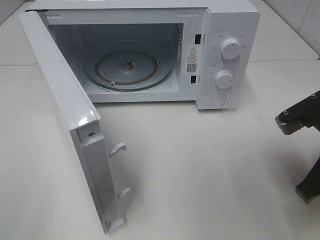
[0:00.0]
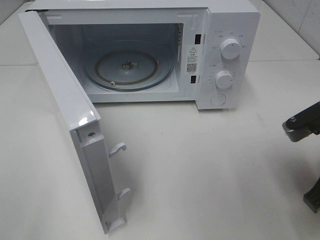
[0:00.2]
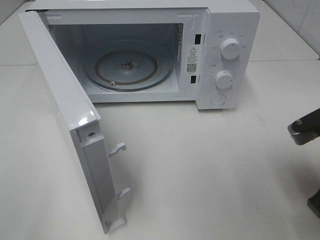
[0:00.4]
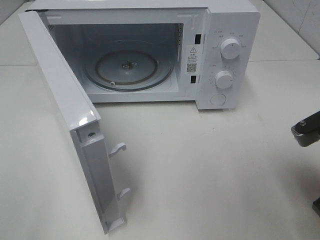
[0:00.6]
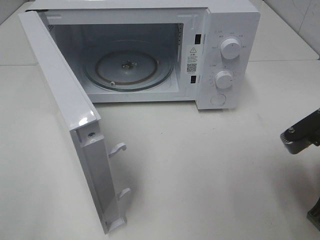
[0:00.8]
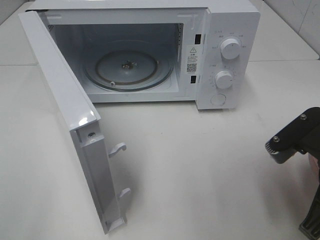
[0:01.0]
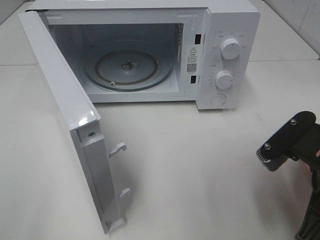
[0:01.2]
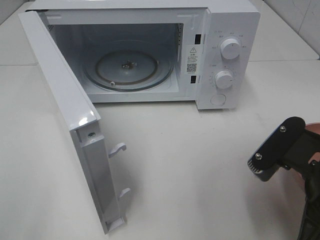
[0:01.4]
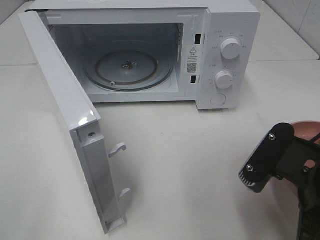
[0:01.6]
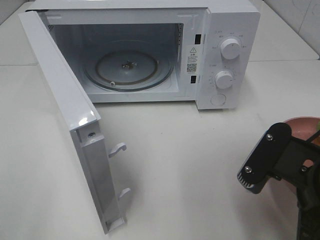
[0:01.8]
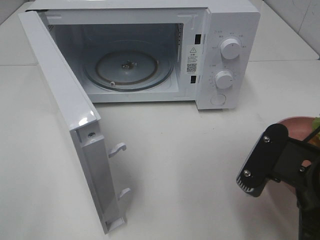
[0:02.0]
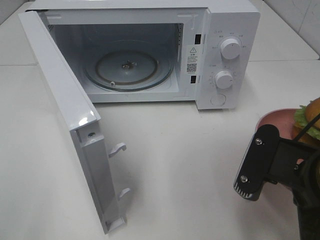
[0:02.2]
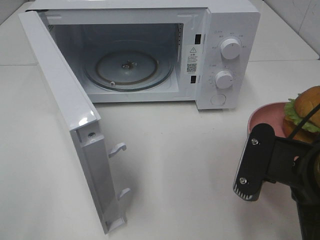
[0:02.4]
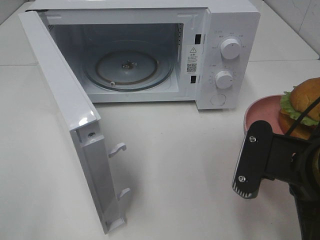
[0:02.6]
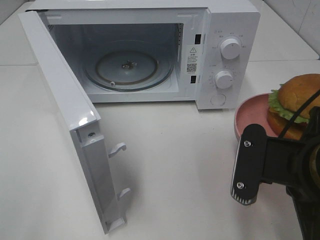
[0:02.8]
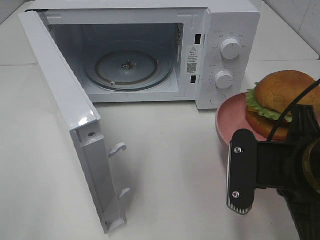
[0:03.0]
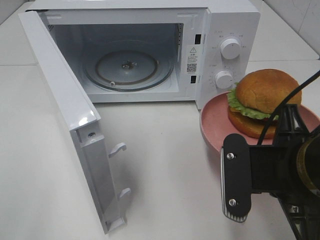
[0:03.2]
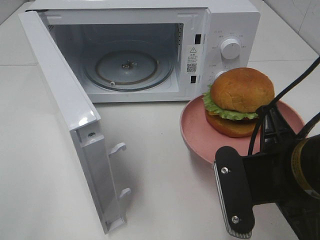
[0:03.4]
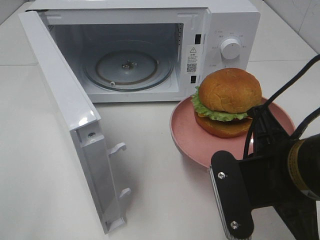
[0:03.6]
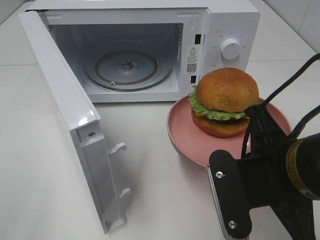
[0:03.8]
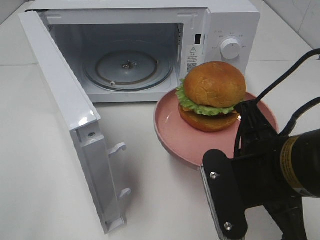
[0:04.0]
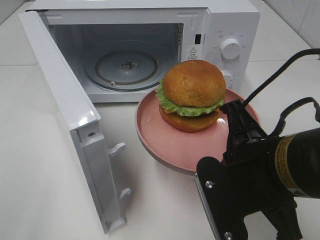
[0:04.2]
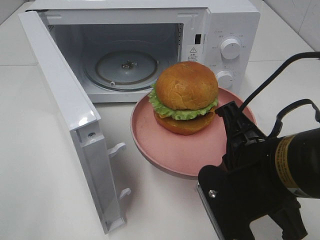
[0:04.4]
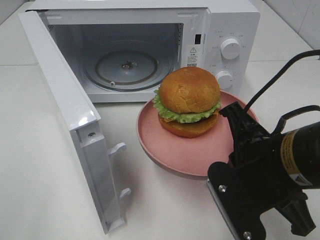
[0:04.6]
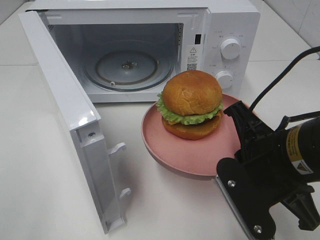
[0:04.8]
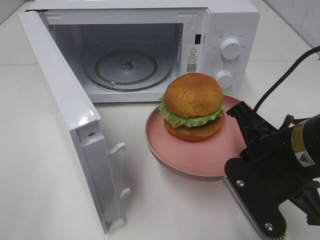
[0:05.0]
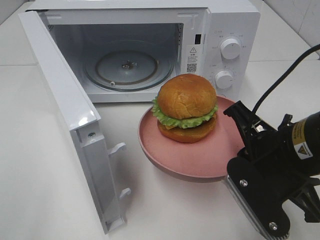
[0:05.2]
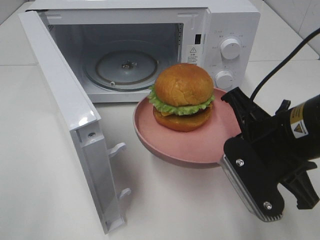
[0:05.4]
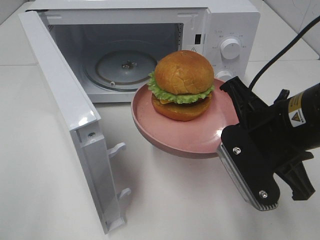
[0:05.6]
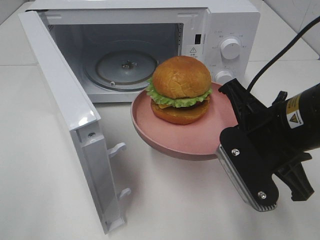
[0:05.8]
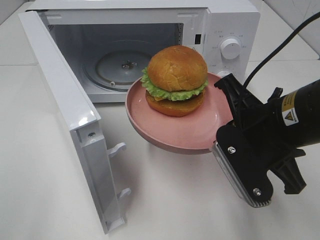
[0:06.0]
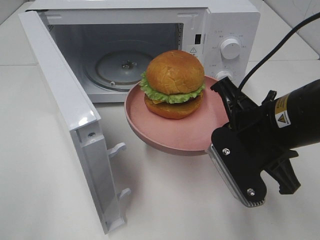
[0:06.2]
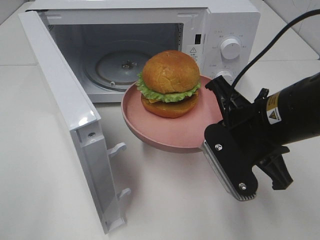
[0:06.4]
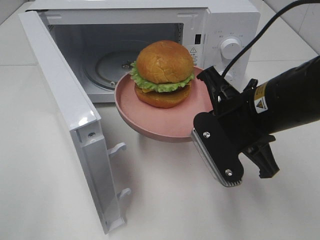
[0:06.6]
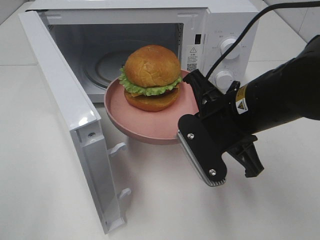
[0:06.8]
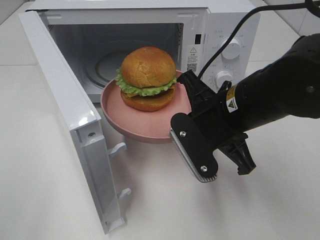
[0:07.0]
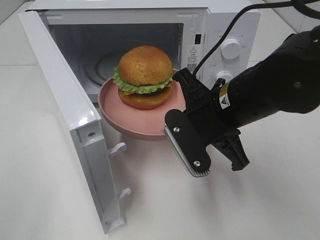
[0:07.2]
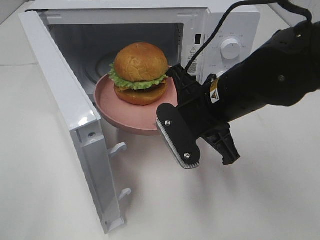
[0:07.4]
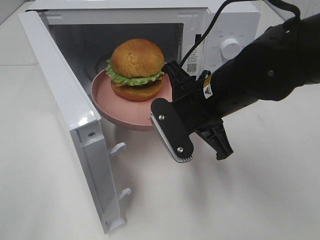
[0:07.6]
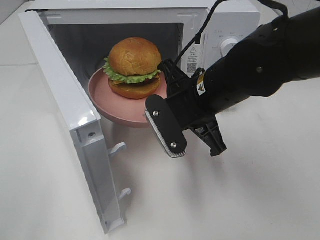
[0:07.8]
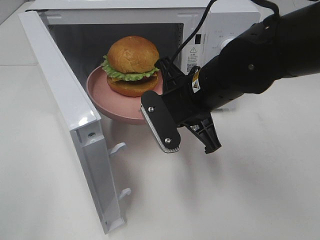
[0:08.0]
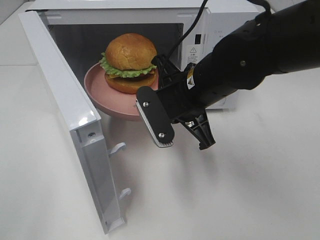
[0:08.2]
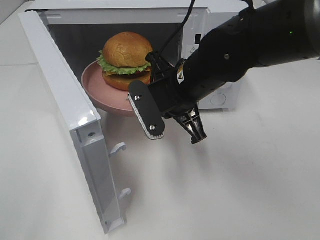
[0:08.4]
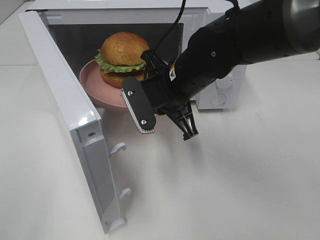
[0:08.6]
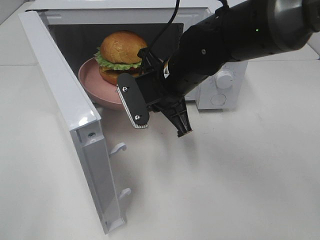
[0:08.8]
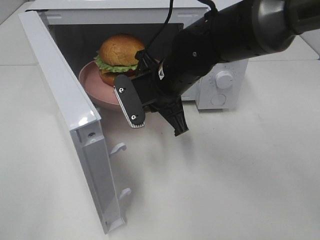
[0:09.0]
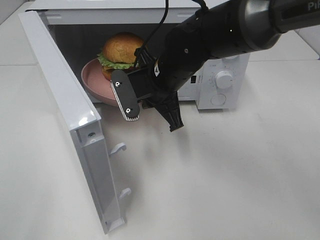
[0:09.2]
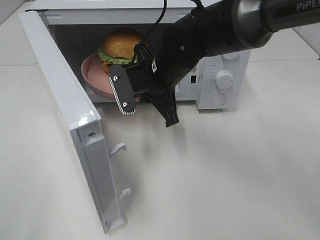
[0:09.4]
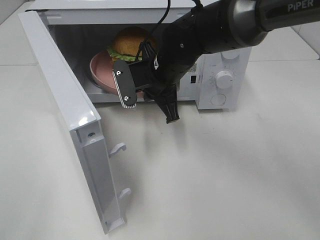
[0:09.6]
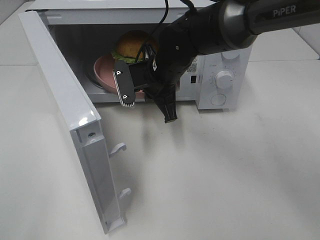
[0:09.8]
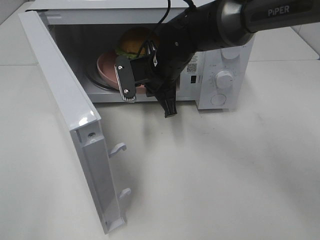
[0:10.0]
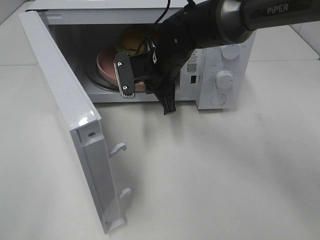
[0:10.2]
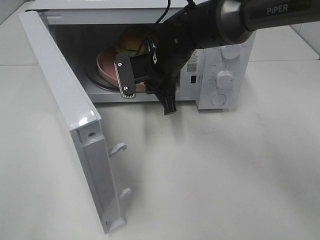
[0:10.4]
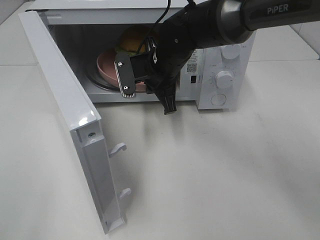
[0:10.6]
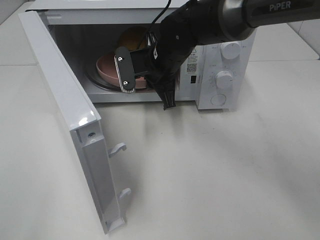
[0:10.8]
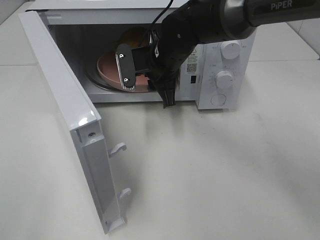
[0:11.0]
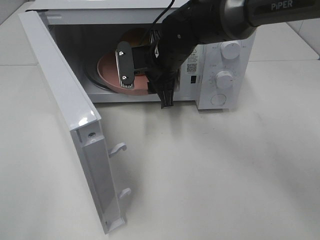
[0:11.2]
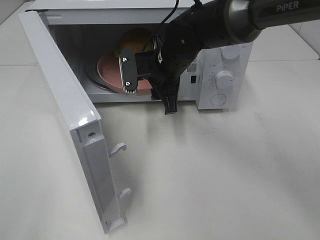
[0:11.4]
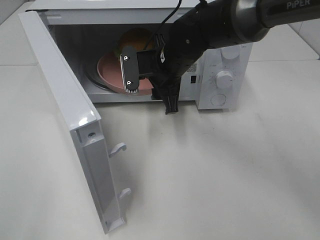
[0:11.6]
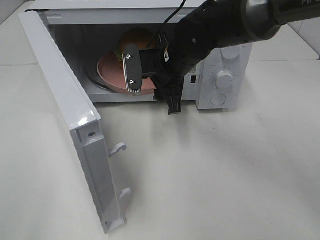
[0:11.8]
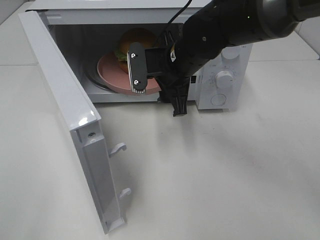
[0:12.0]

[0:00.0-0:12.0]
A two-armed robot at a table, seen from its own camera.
Task of the whole recording: Heat the burger.
Step, 0:00.0 to 0:10.8: Right hand: place the plate in the microwave.
0:00.0 to 0:01.6: The right gripper moves backward and to the left, roughly 10 cm.
0:04.4 to 0:06.0: The right gripper goes some 5 cm forward.
0:06.0 to 0:07.6: The right gripper heads to the left and forward, covering some 10 cm.
0:07.6 to 0:09.0: The right gripper goes roughly 10 cm forward and to the left.
0:09.0 to 0:10.4: The right gripper is displaced forward by about 5 cm.
0:10.4 to 0:12.0: The right gripper opens.

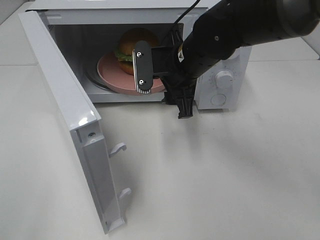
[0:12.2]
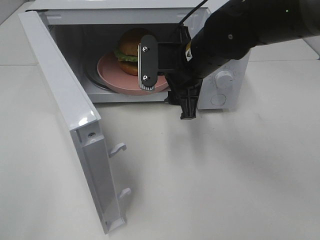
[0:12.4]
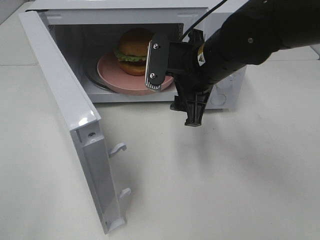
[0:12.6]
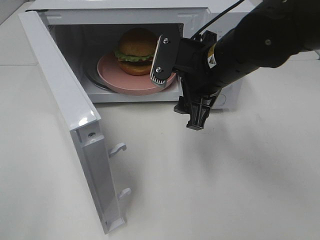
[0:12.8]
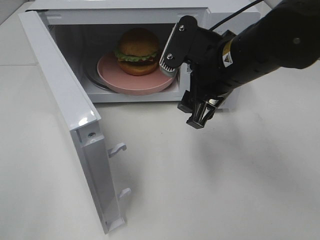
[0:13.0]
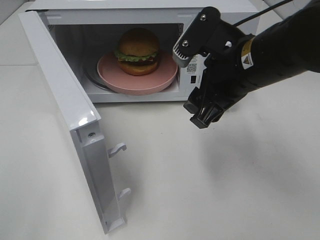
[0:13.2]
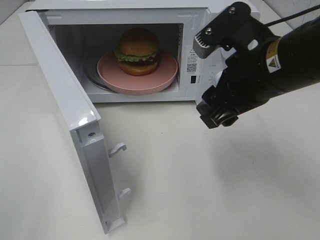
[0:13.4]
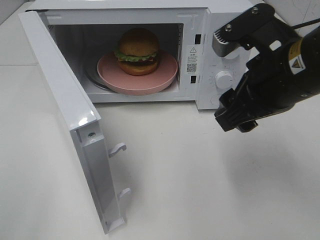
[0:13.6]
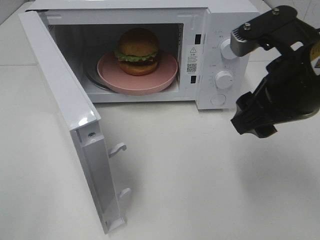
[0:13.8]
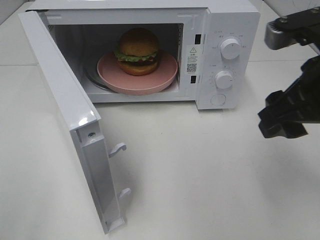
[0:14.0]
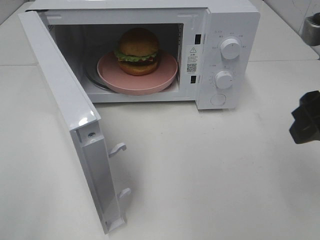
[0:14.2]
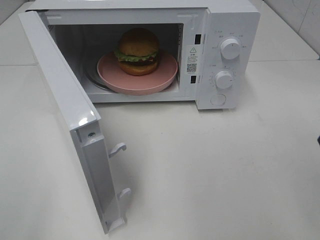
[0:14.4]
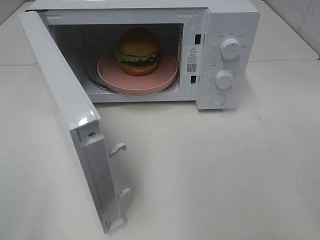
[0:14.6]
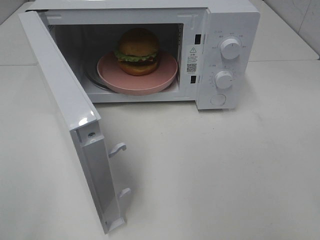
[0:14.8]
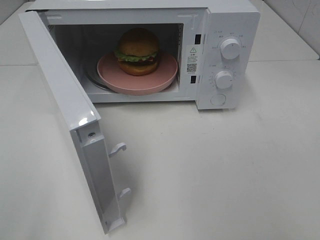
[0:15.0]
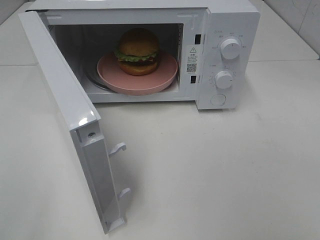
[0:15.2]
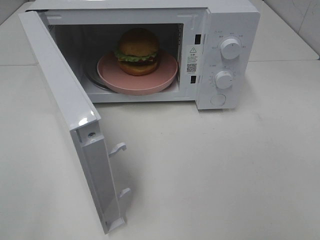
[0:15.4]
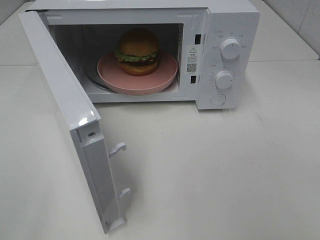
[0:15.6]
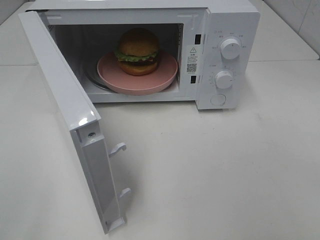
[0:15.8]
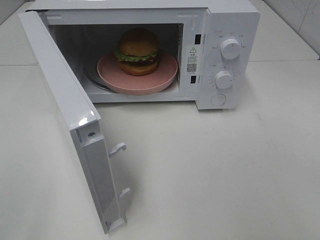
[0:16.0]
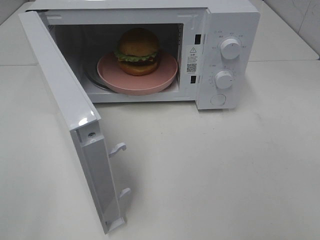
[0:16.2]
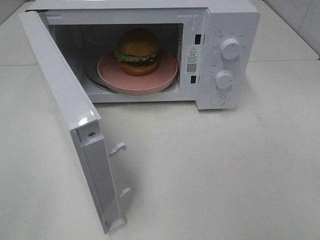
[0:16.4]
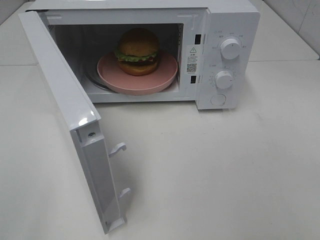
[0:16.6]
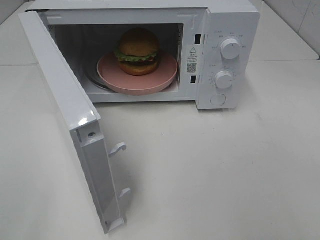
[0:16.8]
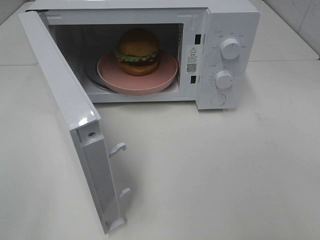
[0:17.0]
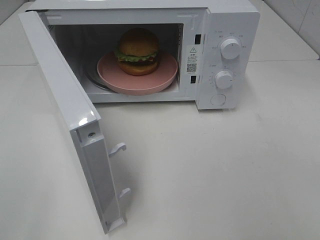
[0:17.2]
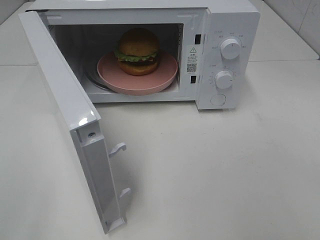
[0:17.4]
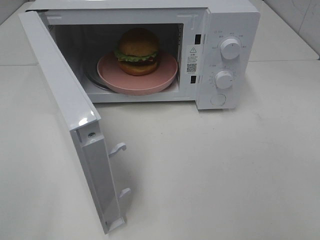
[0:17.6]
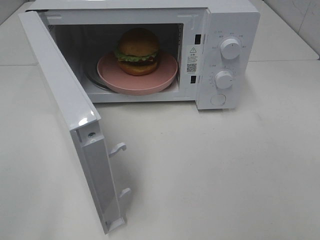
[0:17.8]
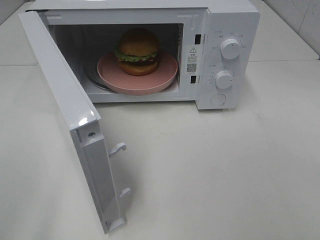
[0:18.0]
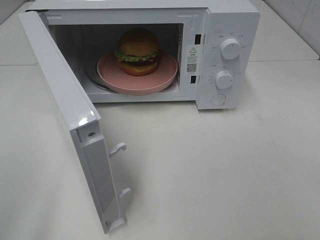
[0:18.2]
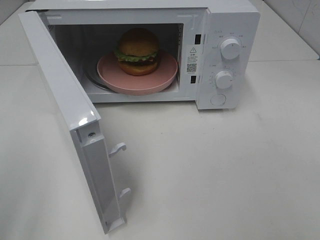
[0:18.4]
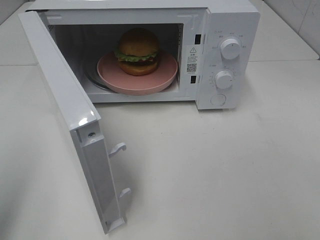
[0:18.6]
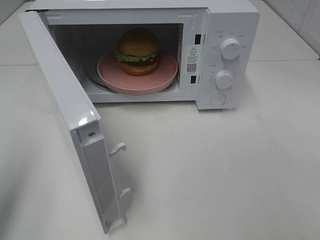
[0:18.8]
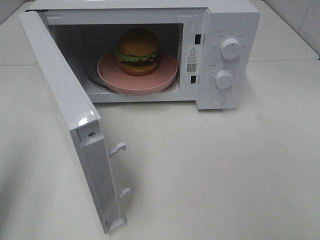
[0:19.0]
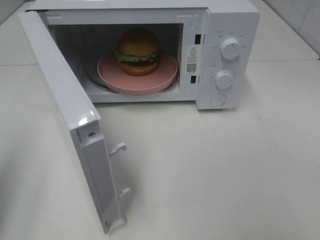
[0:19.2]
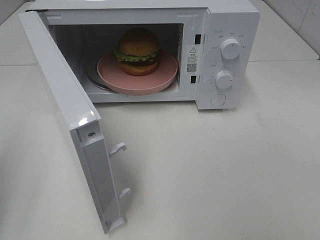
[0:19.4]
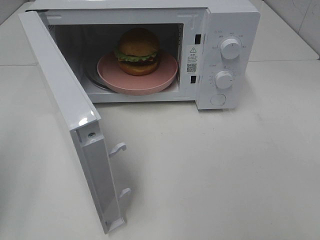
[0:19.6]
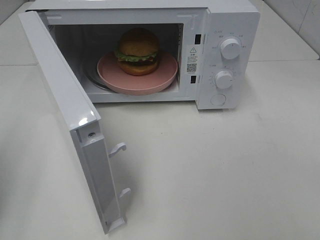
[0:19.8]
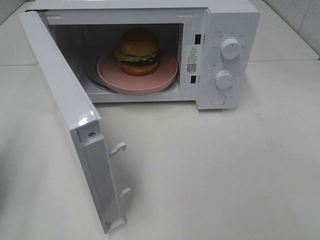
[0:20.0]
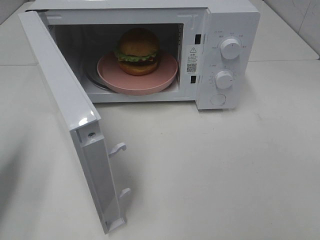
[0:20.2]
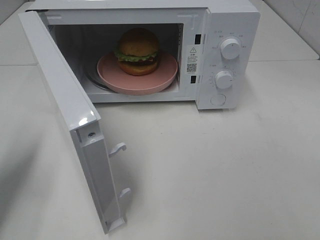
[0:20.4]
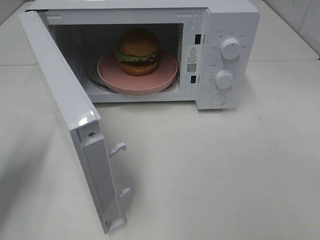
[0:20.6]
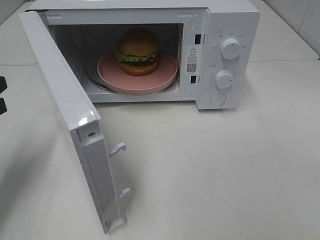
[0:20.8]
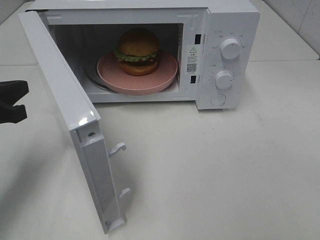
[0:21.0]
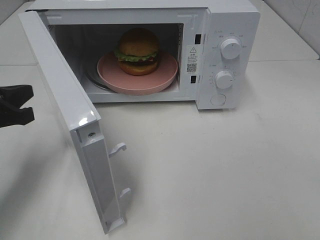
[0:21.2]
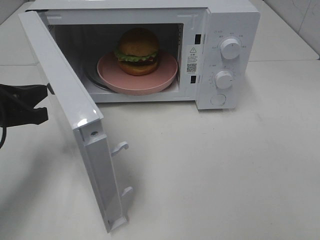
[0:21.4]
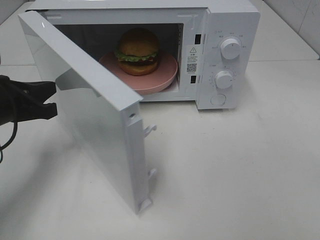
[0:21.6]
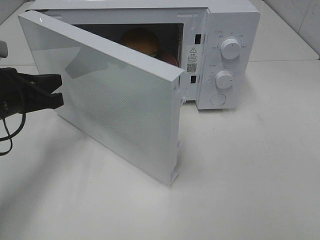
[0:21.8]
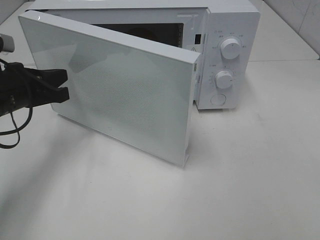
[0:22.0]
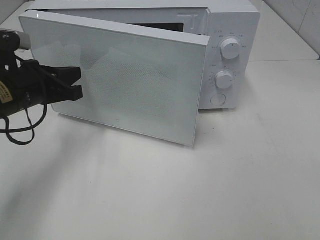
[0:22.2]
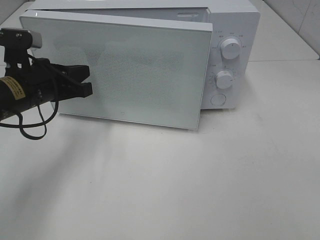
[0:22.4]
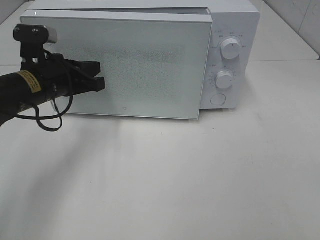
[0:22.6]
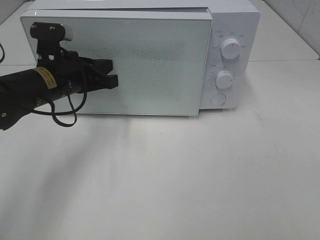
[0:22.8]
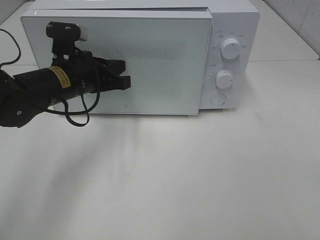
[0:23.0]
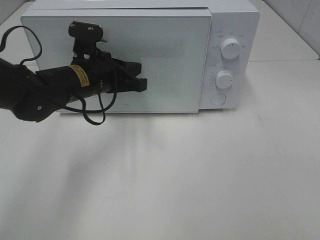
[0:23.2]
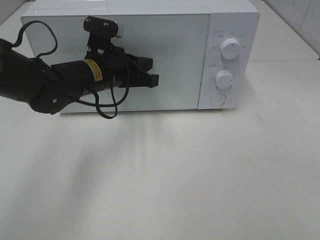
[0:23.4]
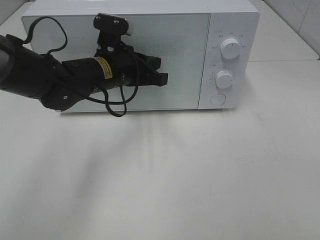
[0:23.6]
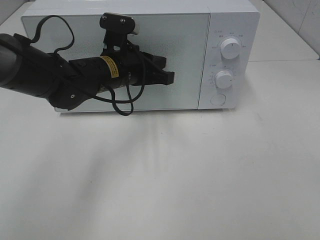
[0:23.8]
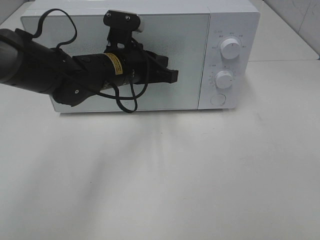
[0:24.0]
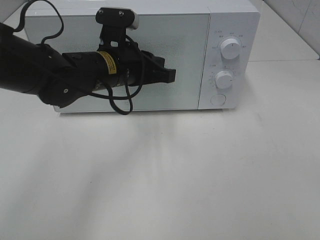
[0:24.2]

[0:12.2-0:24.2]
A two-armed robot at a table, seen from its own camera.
Task of the whole recording: Heat the burger.
Step, 0:12.2 to 0:24.0: Left hand: close the microwave door.
0:12.2 to 0:13.8: The right gripper heads backward, to the right and upward, covering roughly 20 cm.
0:13.8 to 0:15.2: The right gripper travels backward and to the right by roughly 20 cm.
0:19.8 to 0:21.2: The left gripper goes approximately 15 cm forward, to the right and downward.
0:21.2 to 0:22.6: The left gripper moves to the right and forward, some 10 cm.
0:22.6 to 0:24.2: The left gripper goes roughly 10 cm to the right.
